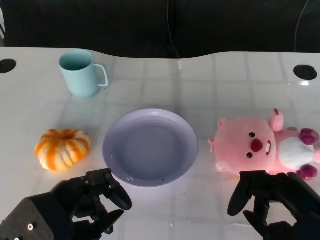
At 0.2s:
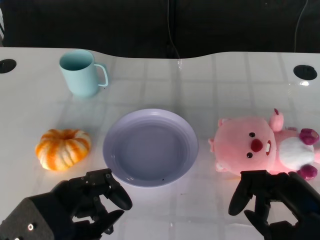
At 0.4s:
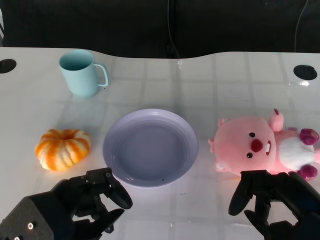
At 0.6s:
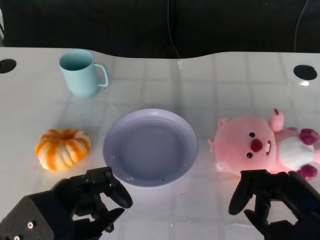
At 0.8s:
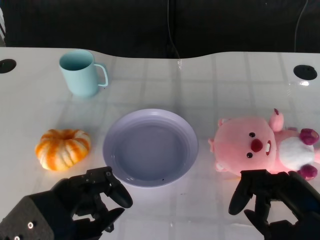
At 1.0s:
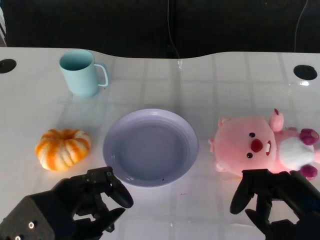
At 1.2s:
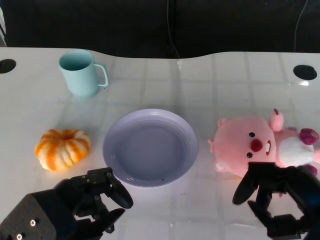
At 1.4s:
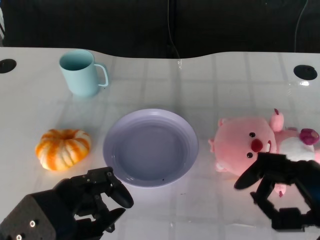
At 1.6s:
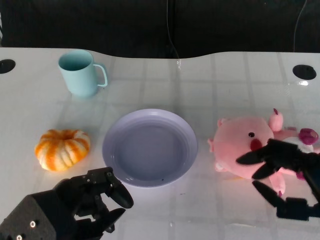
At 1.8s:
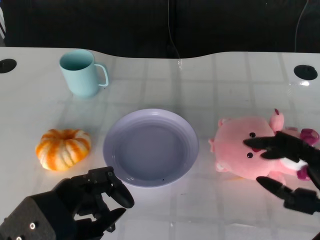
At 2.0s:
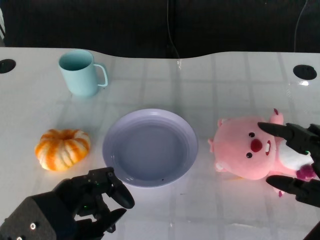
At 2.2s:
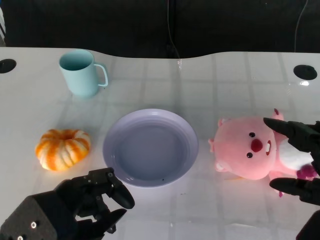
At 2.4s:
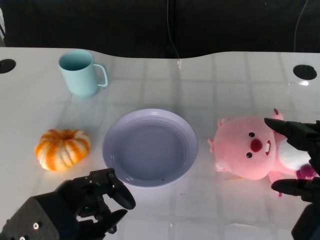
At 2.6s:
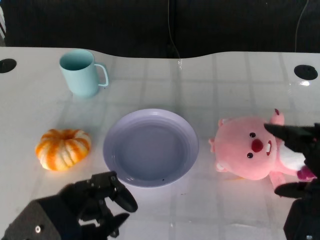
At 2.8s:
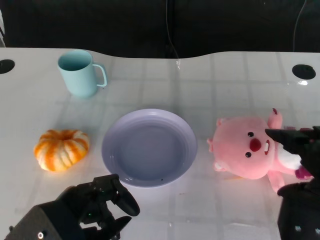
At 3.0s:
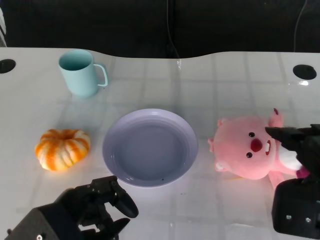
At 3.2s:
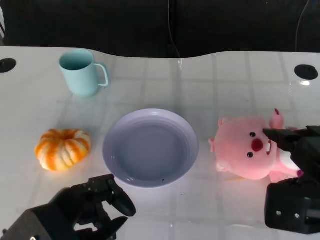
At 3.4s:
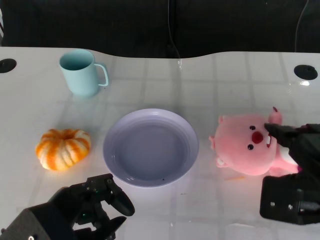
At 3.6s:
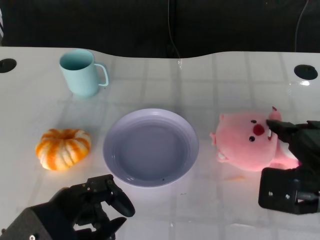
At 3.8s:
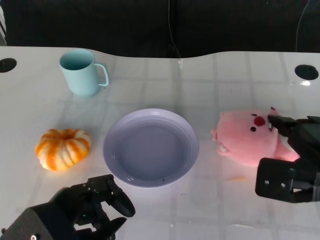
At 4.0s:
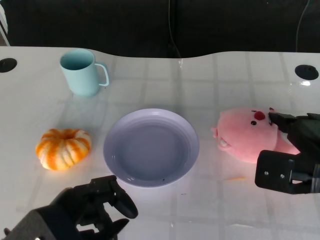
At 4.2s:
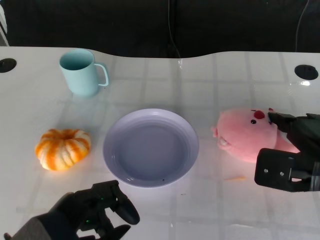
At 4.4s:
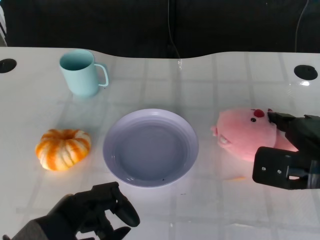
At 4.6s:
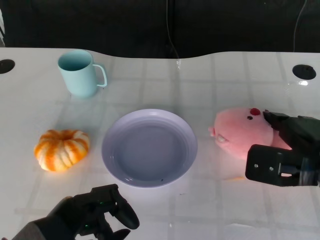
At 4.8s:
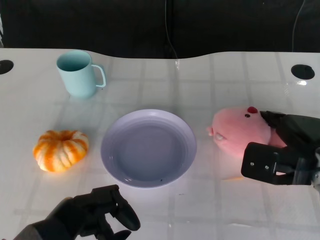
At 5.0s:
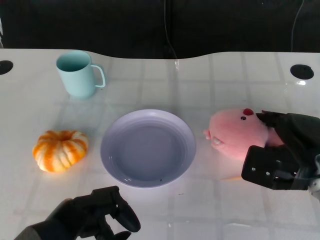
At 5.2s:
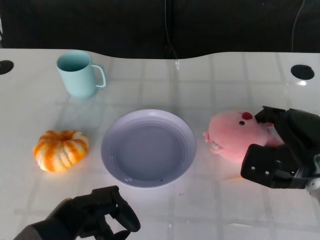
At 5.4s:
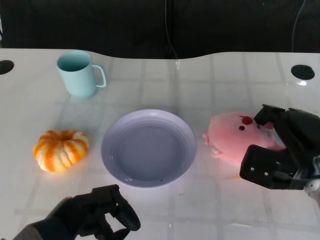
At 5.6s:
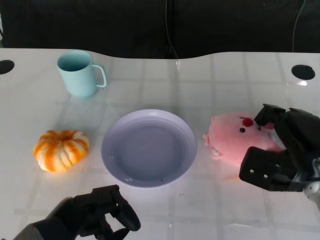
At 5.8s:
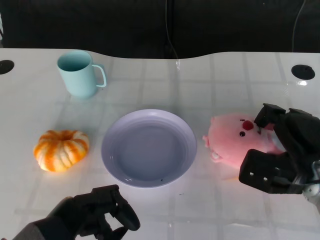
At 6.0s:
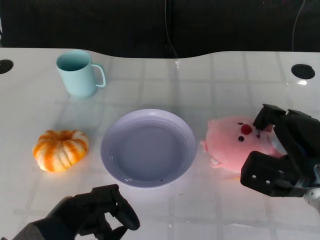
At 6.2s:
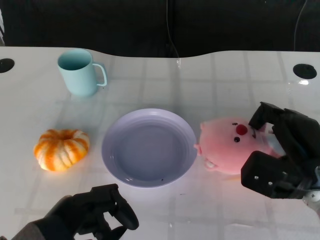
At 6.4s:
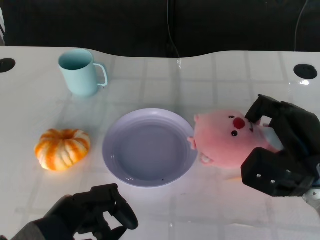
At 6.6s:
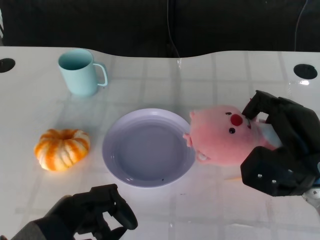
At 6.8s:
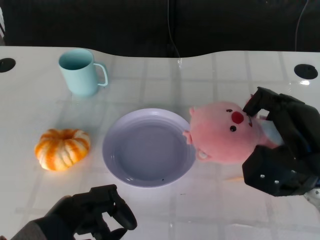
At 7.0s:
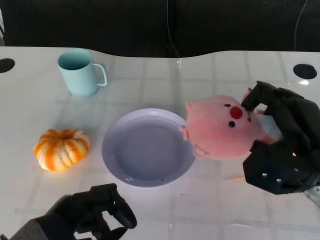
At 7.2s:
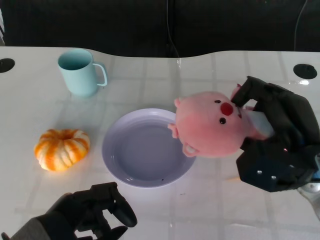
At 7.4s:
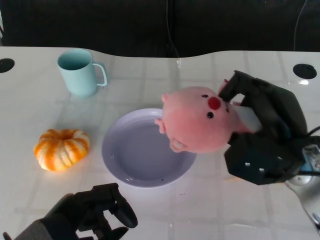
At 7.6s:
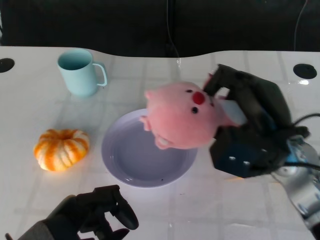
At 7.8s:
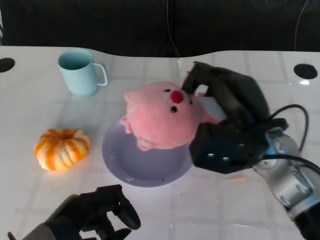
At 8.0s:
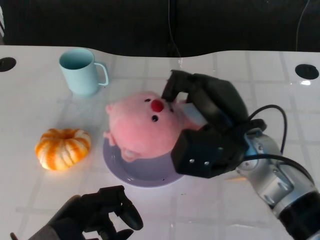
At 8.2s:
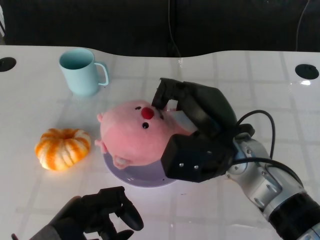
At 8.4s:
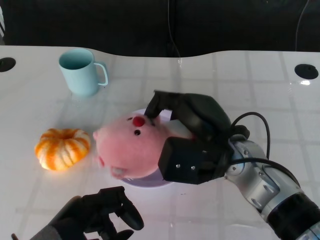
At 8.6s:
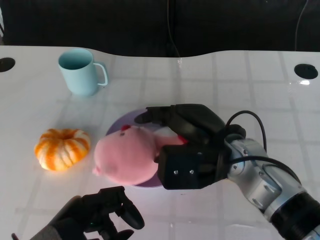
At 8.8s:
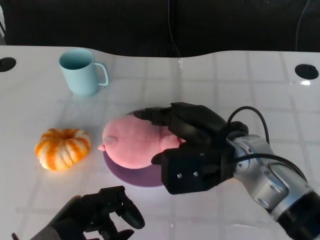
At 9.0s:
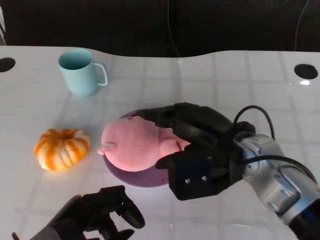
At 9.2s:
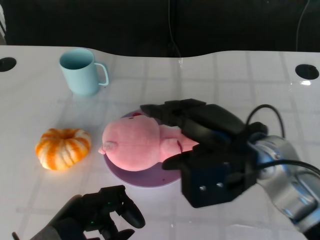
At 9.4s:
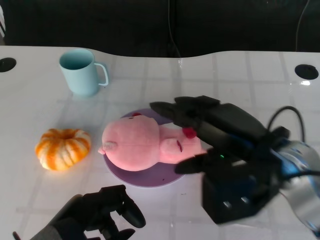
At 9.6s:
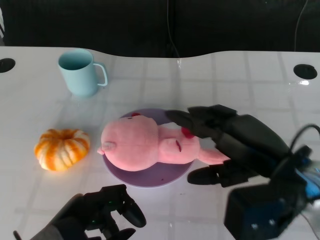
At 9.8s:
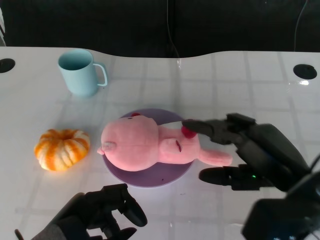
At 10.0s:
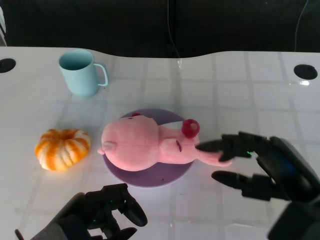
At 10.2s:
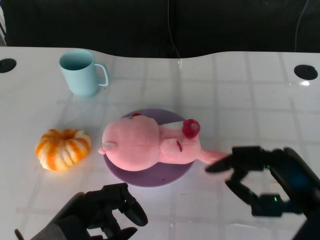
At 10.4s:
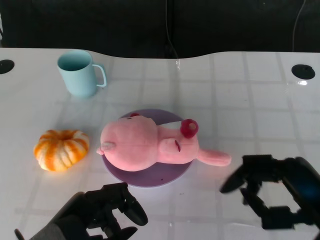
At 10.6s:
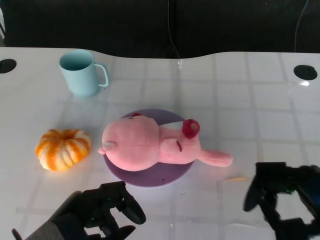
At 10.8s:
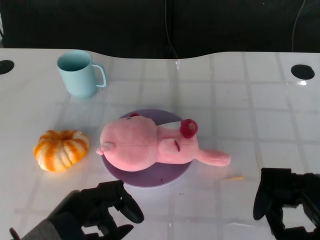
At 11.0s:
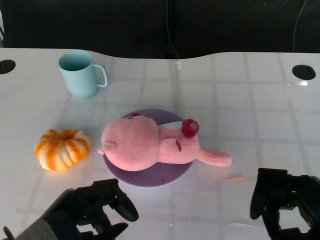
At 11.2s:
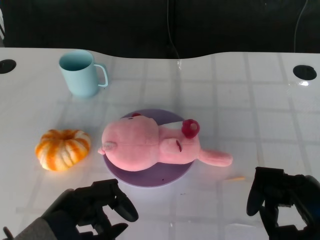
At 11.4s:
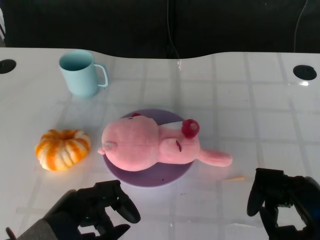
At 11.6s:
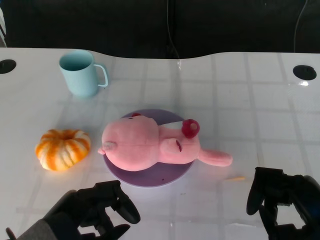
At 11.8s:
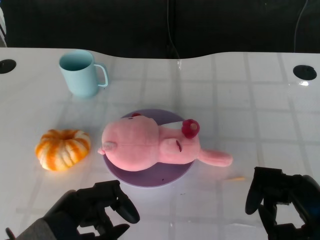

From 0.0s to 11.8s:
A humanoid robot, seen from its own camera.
Task of the whole recording: Pick up the doll on the other side of the plate and place it into the plate.
Step, from 1.0s to 7.2s: Grasp the pink doll with the right gripper.
Step, from 7.4s to 9.6s: Place the pink doll into the plate with the right gripper.
From 1.4s to 3.0s: The right hand shifts by roughly 5 cm.
From 3.0s to 4.4s: The right hand travels forward by some 5 cm.
From 6.0s to 7.4s: The right hand travels upward by roughly 5 cm.
From 7.4s to 8.8s: The right hand is displaced to the left by roughly 10 cm.
From 8.8s to 10.4s: The right hand travels to the right and backward by about 15 cm.
From 10.4s to 11.8s: The hands make only small movements.

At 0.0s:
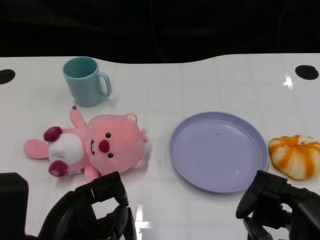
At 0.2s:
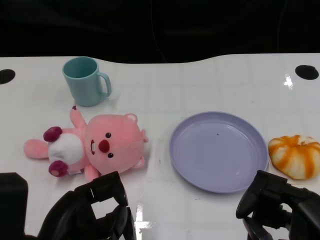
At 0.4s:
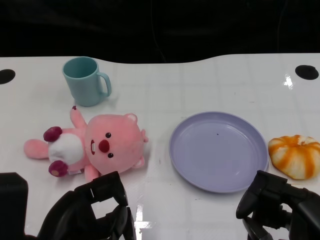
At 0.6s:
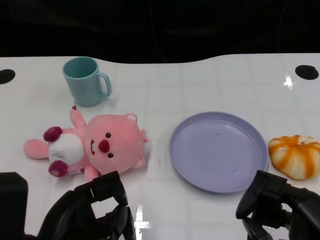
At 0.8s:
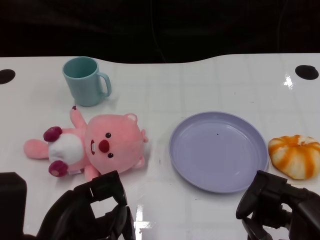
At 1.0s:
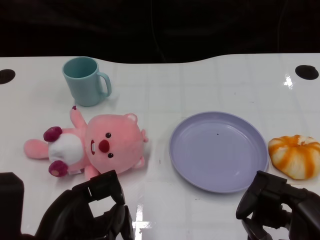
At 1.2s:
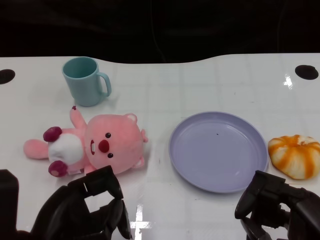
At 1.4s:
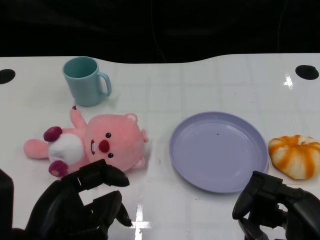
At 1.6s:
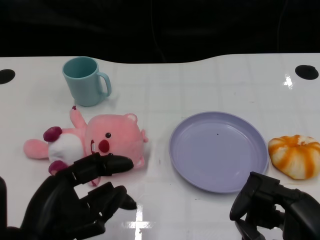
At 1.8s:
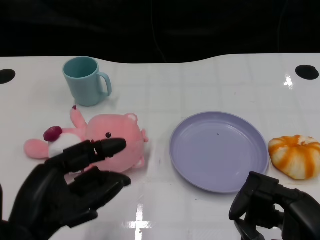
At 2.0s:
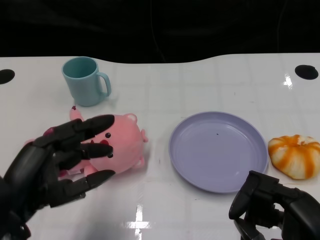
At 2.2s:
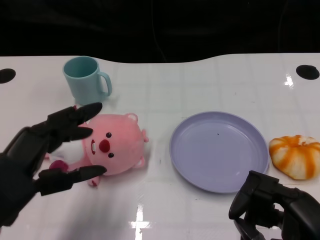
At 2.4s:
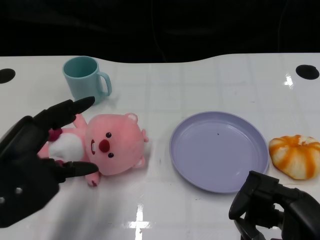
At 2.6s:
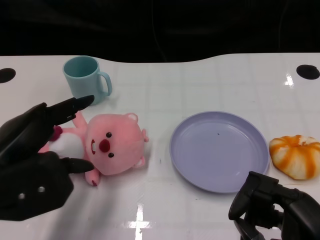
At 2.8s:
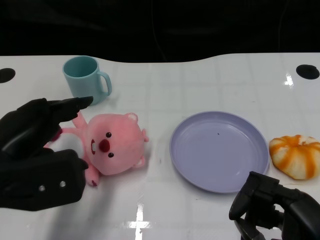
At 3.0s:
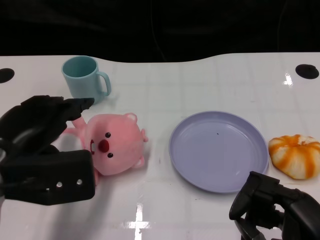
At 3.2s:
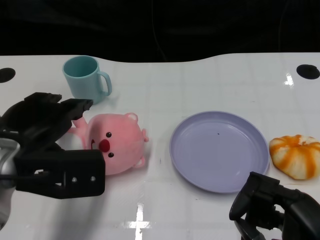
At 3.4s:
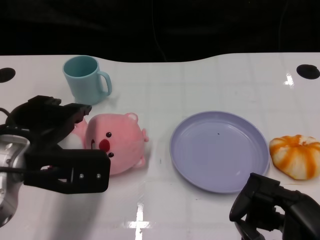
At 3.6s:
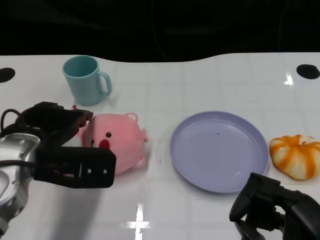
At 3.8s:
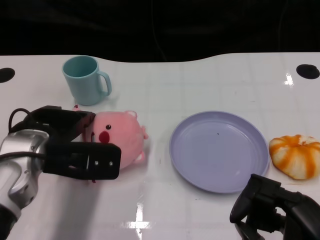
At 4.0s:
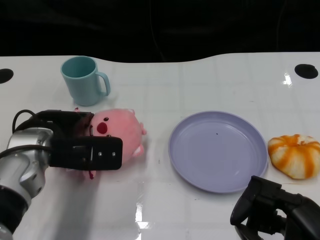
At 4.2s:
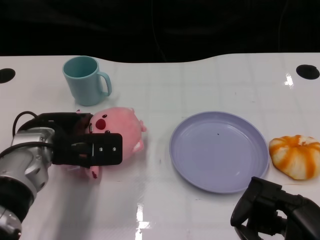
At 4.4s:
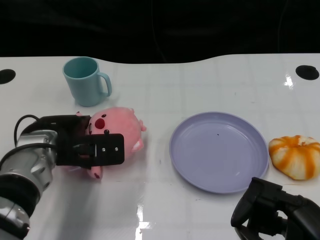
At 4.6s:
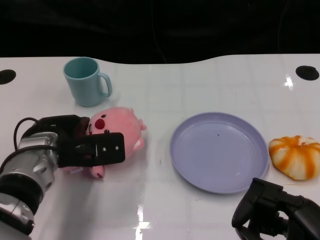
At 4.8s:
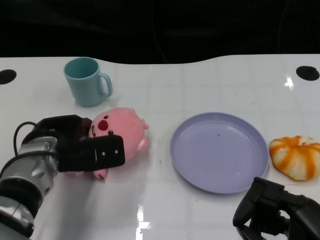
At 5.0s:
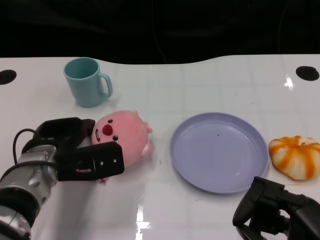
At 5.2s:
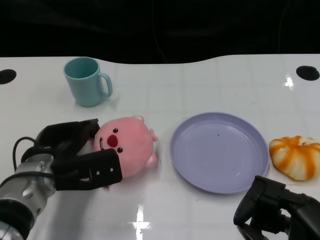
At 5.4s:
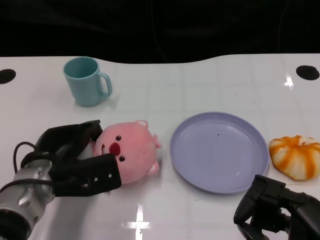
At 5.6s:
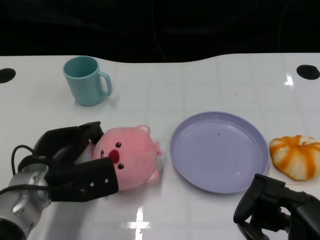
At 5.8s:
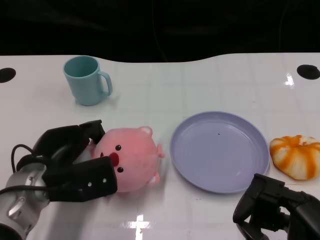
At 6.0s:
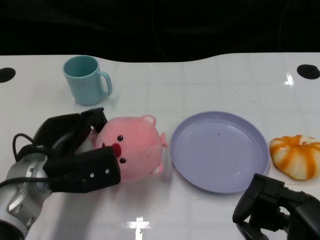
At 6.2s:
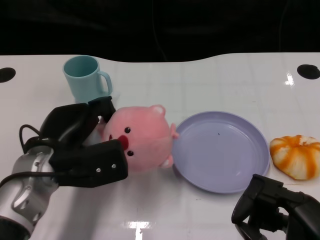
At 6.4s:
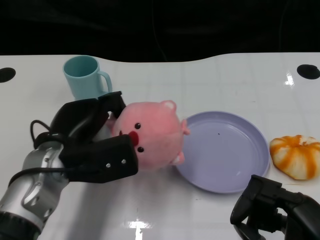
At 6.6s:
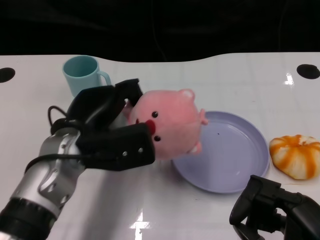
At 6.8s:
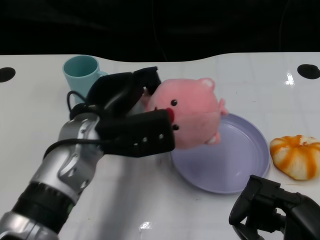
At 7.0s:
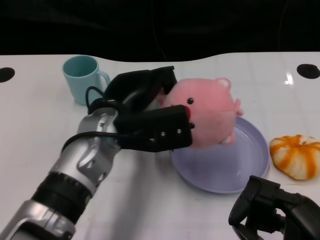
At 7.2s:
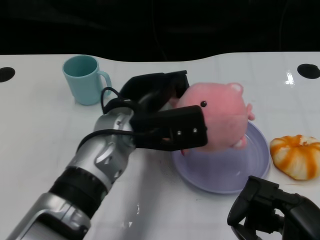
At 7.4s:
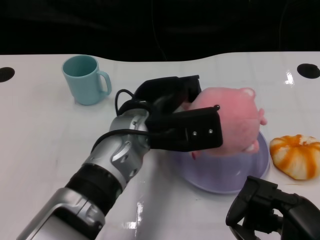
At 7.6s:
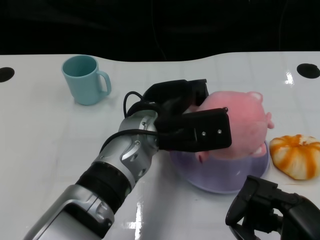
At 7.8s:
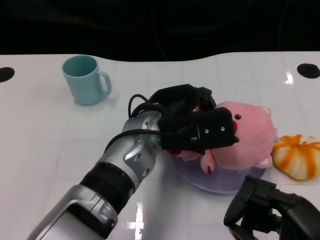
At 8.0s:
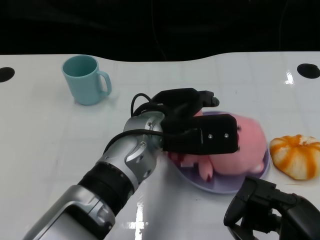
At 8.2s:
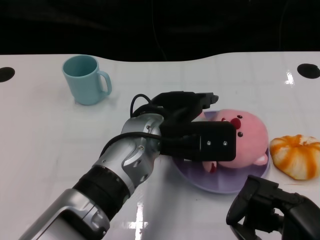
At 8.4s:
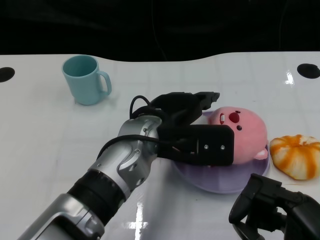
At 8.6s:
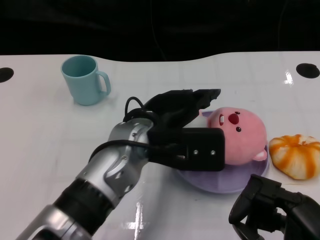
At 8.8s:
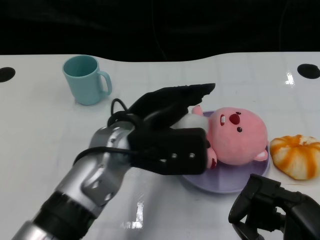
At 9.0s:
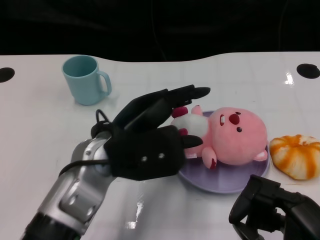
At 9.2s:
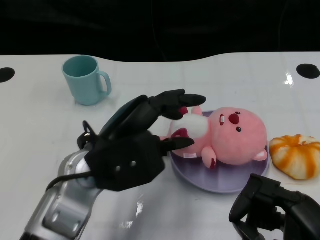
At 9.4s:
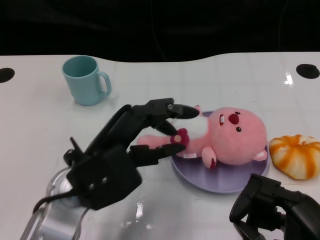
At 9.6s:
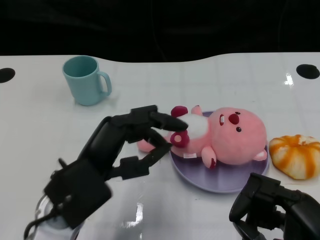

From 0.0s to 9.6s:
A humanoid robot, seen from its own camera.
Task of the whole recording: Pick up the doll on one side of the plate and place it into the plate.
Step, from 1.0s to 5.8s: Grasp the pink doll with the left gripper.
Step, from 6.0s to 8.4s: Place the pink doll into the plate with the left gripper.
From 1.6s to 3.2s: The left hand shifts about 10 cm forward and upward.
From 3.2s to 4.8s: The left hand travels downward and forward by about 10 cm.
From 6.4s to 8.0s: The left hand moves to the right, roughly 15 cm.
From 8.0s to 9.6s: The left hand goes some 15 cm to the left and backward.

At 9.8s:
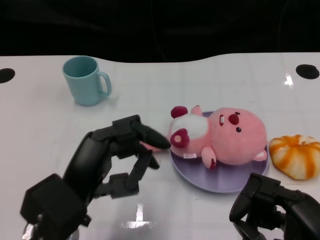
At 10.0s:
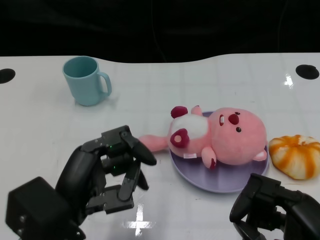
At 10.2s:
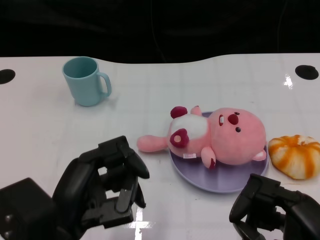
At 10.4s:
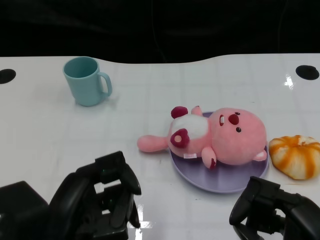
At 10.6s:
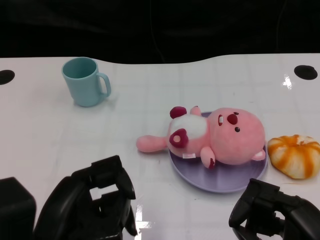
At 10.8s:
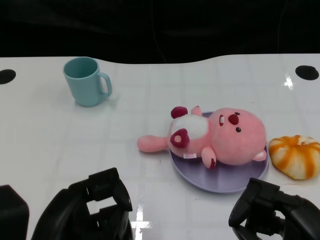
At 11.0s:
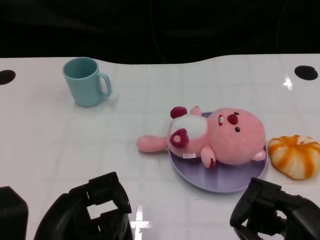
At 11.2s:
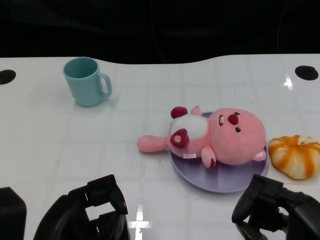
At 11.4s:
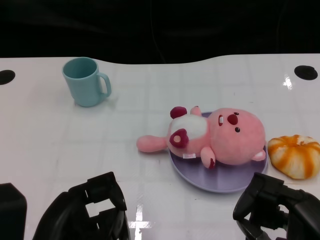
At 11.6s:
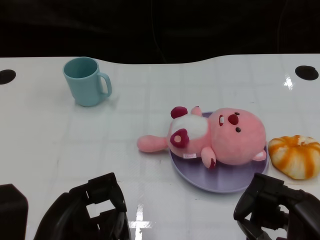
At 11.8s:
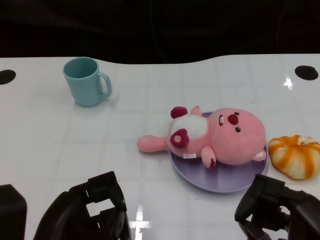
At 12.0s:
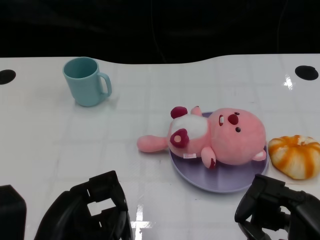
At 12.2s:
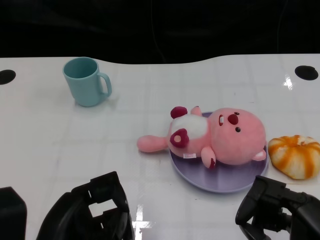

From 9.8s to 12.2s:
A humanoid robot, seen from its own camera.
Task of the whole recording: Pick up the doll on one side of the plate and place it into the plate.
From 9.8s to 11.0s: The left hand travels backward by roughly 5 cm.
From 11.0s to 12.2s: There are only small adjustments of the hands.
